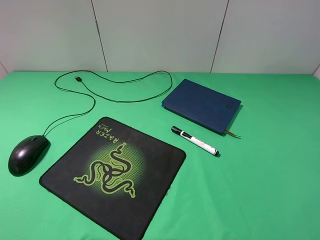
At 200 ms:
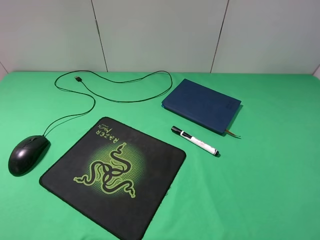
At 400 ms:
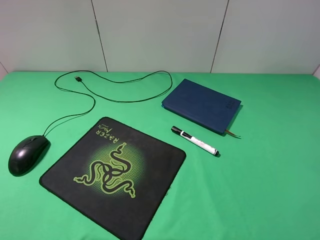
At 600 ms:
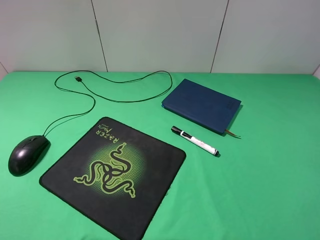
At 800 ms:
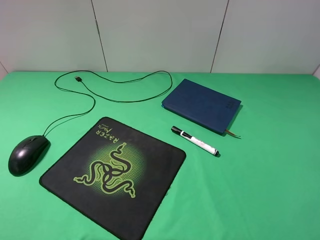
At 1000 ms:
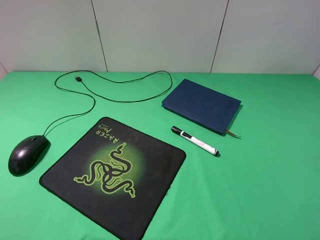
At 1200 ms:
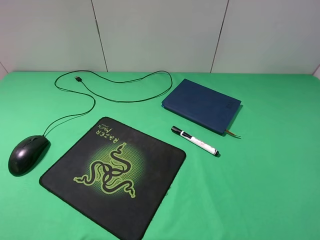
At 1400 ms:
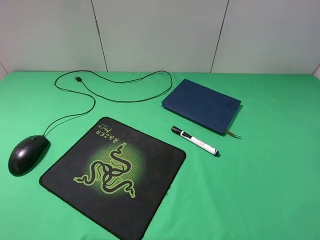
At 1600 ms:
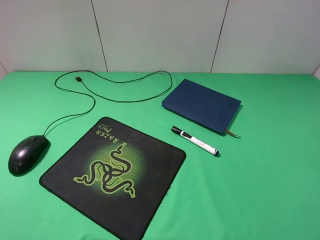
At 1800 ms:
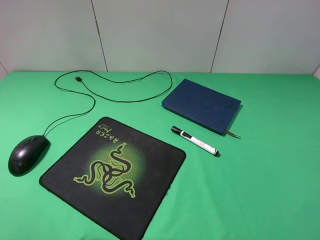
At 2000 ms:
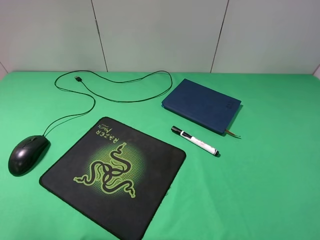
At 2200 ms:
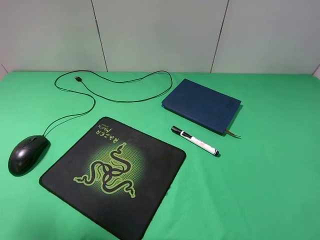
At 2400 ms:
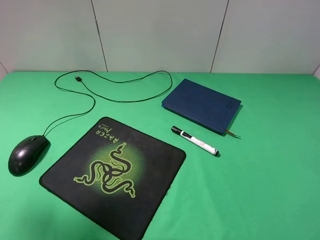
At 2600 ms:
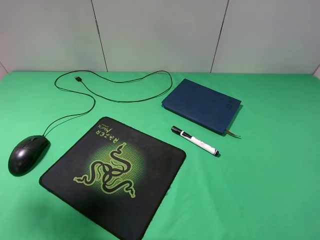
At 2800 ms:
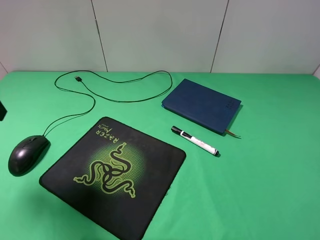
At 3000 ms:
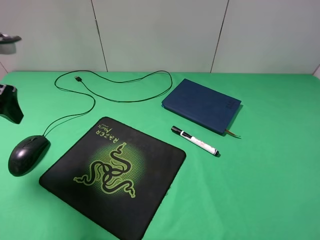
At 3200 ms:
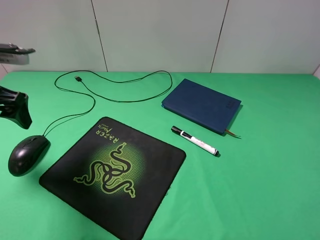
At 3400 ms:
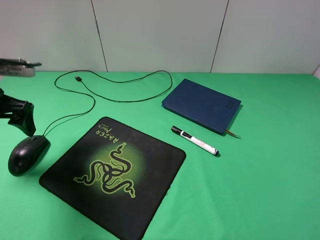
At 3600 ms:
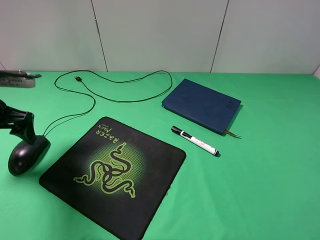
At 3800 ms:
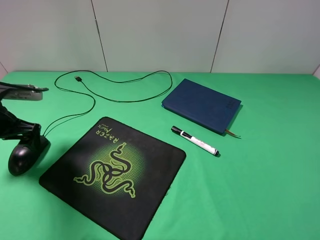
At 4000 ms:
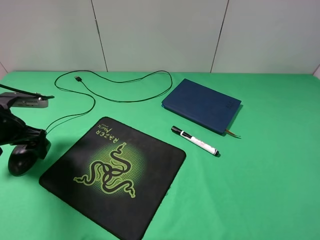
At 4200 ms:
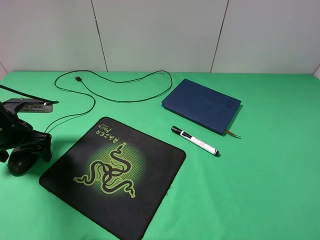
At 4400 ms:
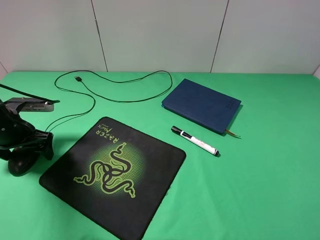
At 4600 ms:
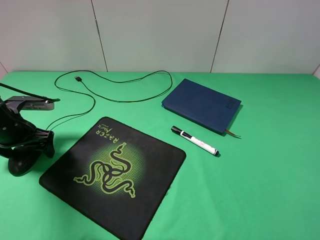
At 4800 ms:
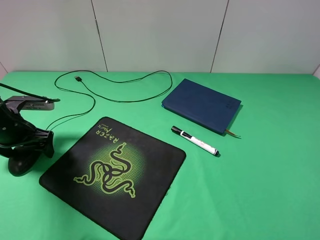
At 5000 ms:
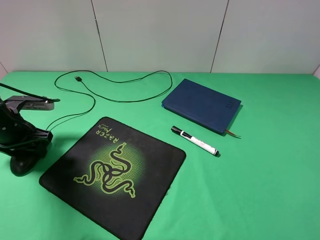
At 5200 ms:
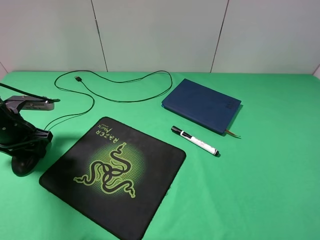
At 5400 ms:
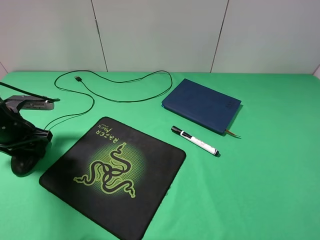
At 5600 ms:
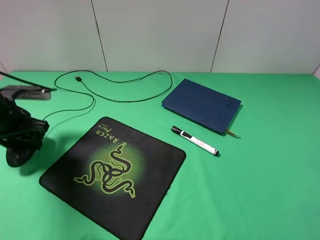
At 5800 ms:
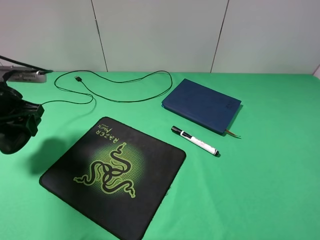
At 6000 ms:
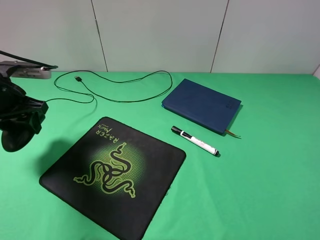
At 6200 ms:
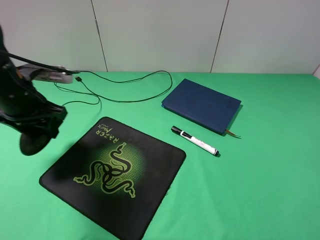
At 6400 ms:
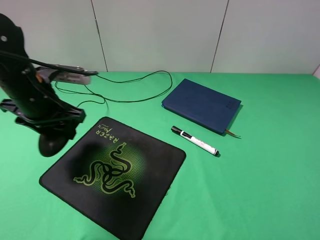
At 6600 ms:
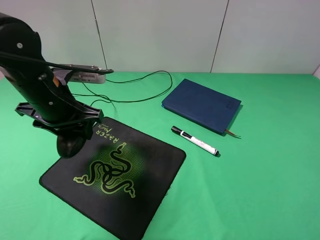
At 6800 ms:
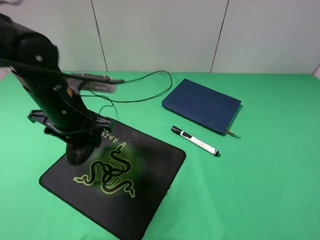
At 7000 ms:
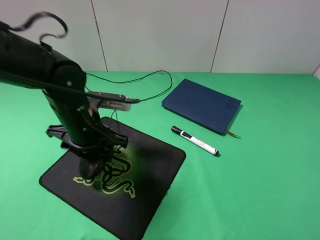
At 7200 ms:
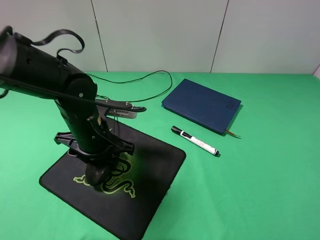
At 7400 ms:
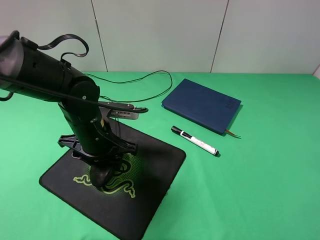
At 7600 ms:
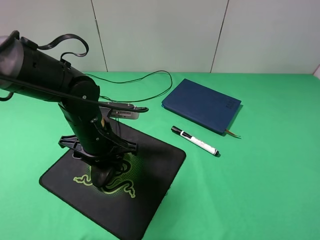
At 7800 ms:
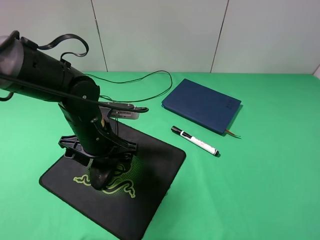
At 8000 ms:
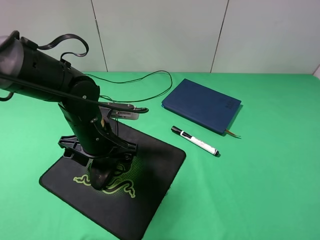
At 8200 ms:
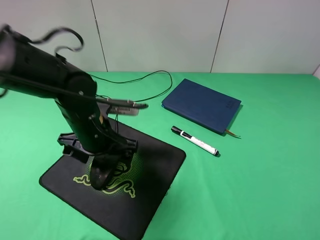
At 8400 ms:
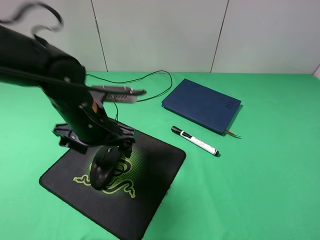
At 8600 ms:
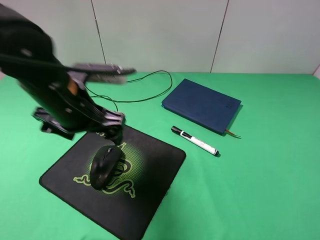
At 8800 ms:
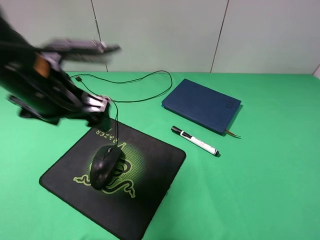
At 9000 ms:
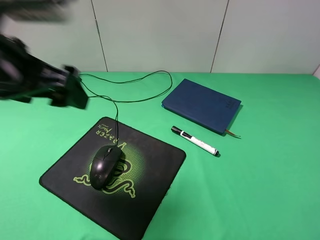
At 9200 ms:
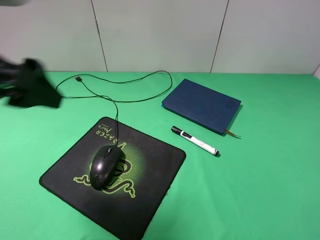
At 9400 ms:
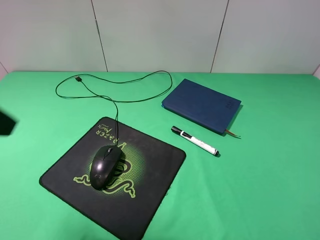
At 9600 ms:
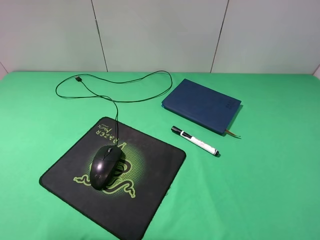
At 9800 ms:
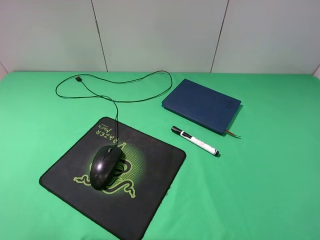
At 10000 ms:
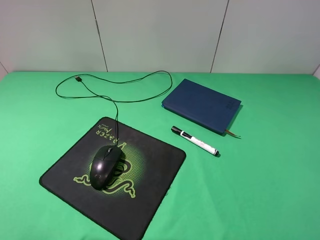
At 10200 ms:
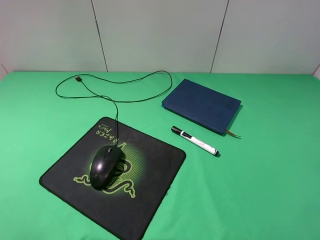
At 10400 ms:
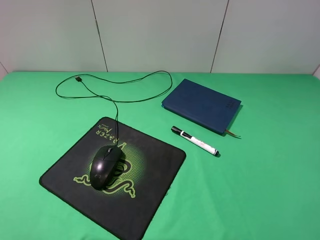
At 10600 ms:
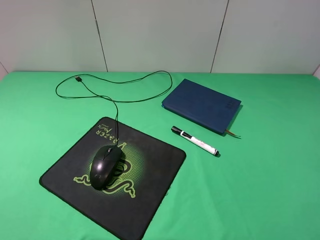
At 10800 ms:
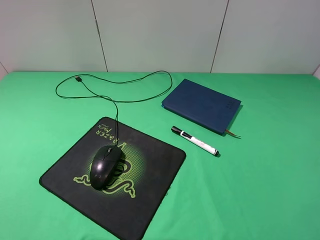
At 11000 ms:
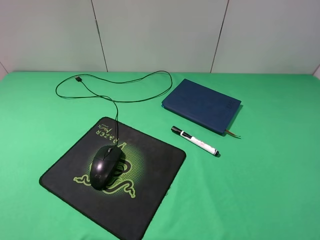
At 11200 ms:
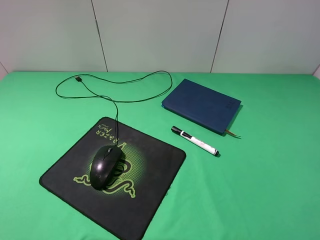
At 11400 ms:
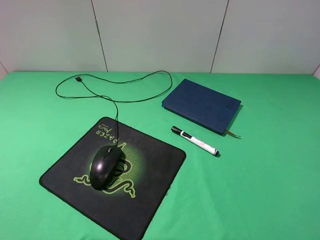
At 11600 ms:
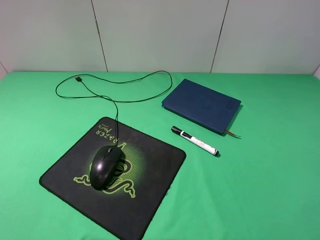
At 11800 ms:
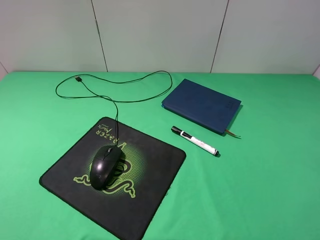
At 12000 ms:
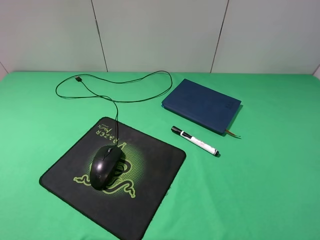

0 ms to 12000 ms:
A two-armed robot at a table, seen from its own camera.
Step, 0 ms to 5200 ms: Grasp the mouse with the left gripper.
Step, 5400 ms to 8200 ms: Place the mouse on the mouse pad with the left gripper.
1600 ms to 3000 ms: The left gripper goes some 20 cm forward.
3000 ms to 4400 ms: The left gripper is displaced downward by approximately 15 cm.
4400 ms to 6000 ms: The left gripper travels upward by some 10 cm, and closes up.
6000 ms to 7600 ms: The left gripper is displaced to the right and downward by about 20 cm.
7600 ms to 9000 ms: The left gripper is displaced upward by some 20 cm, and opens.
9000 ms to 10400 ms: The left gripper goes roughly 20 cm backward and to the left.
10400 ms to 12000 ms: The two grippers keep their place.

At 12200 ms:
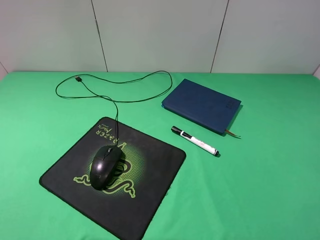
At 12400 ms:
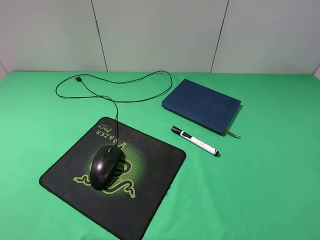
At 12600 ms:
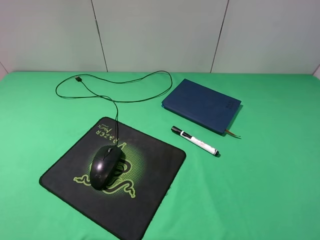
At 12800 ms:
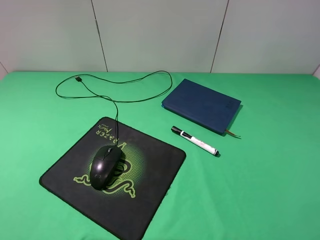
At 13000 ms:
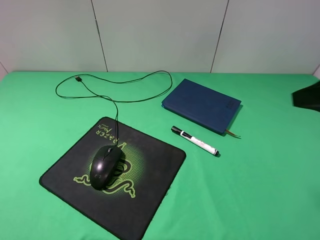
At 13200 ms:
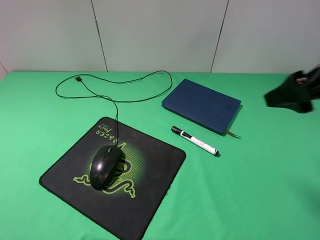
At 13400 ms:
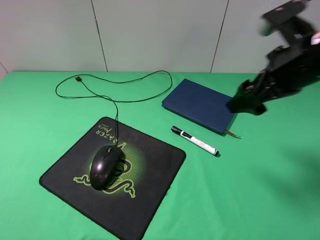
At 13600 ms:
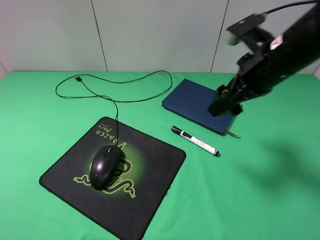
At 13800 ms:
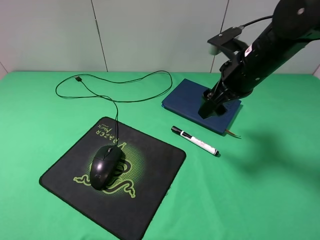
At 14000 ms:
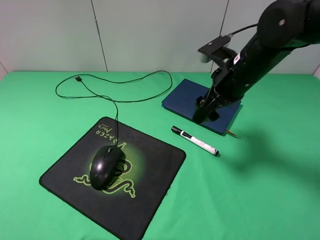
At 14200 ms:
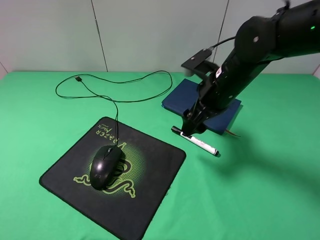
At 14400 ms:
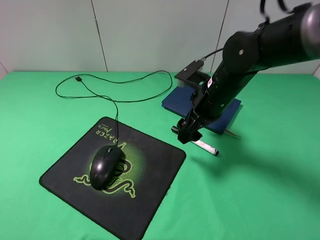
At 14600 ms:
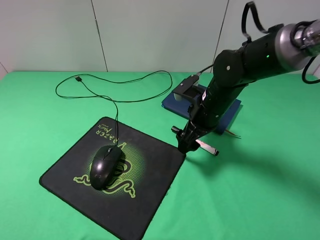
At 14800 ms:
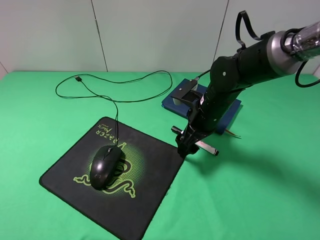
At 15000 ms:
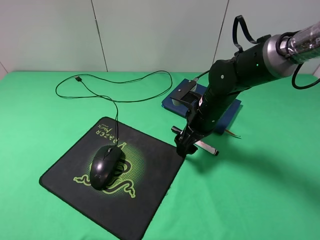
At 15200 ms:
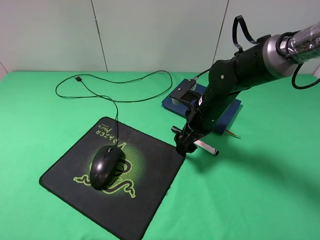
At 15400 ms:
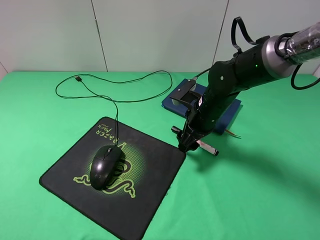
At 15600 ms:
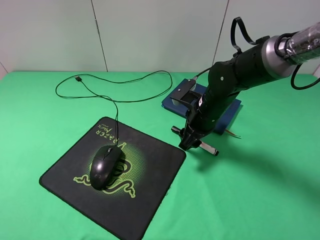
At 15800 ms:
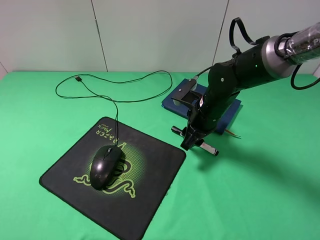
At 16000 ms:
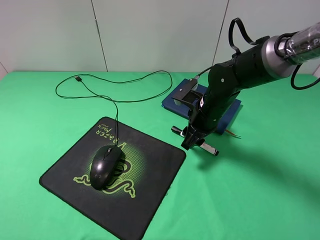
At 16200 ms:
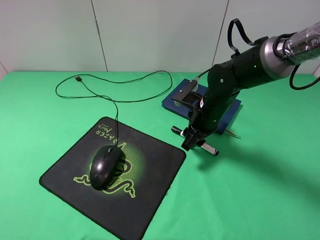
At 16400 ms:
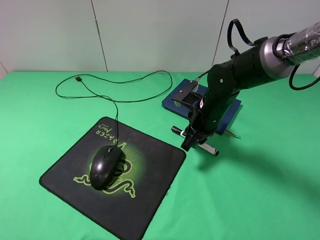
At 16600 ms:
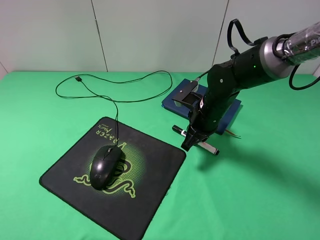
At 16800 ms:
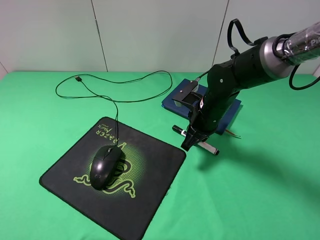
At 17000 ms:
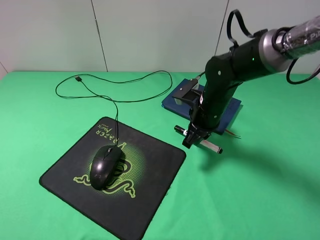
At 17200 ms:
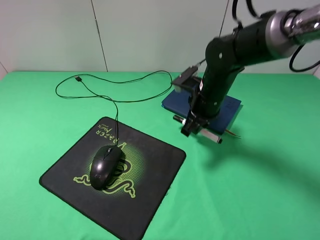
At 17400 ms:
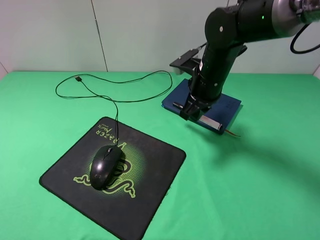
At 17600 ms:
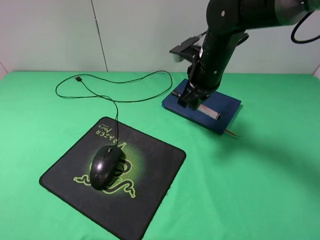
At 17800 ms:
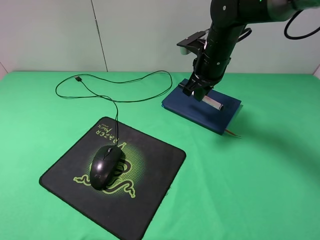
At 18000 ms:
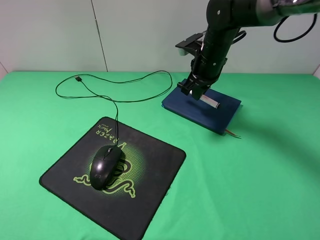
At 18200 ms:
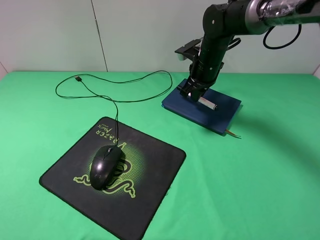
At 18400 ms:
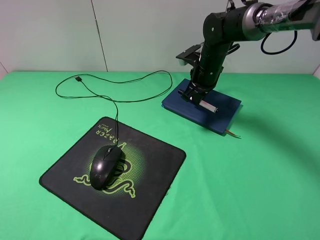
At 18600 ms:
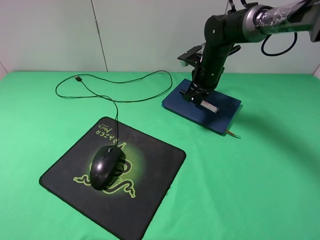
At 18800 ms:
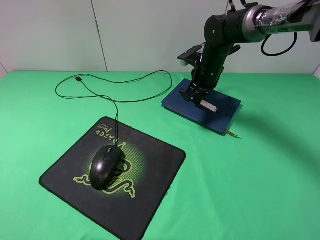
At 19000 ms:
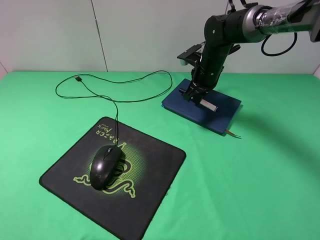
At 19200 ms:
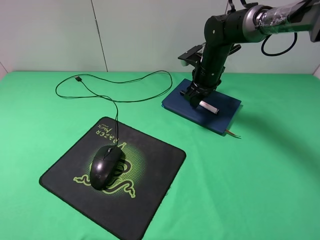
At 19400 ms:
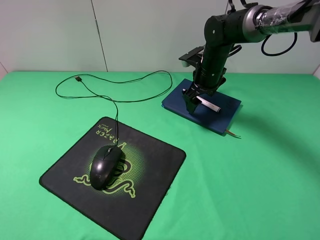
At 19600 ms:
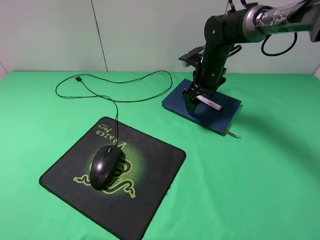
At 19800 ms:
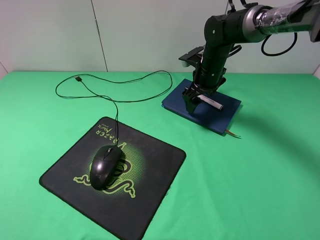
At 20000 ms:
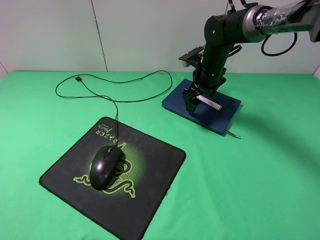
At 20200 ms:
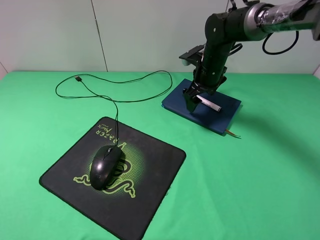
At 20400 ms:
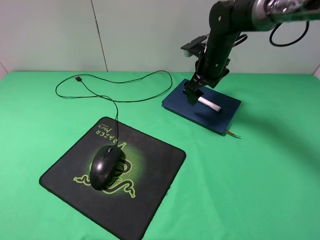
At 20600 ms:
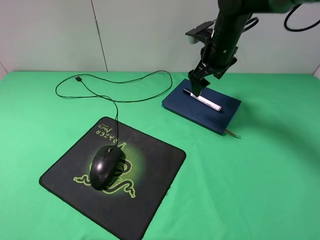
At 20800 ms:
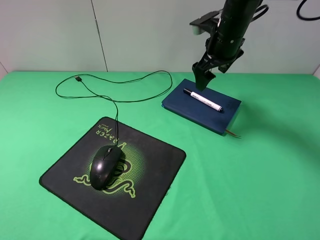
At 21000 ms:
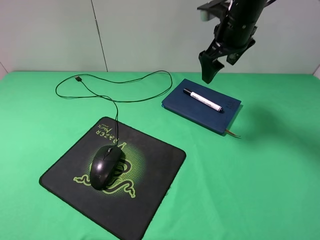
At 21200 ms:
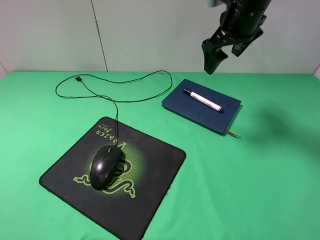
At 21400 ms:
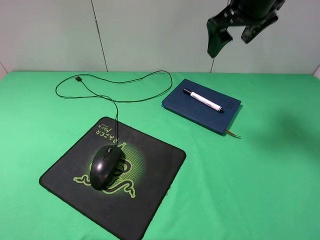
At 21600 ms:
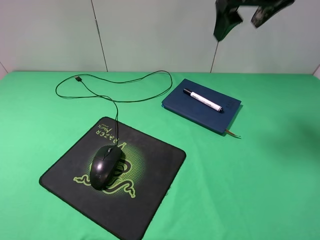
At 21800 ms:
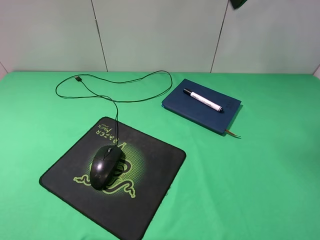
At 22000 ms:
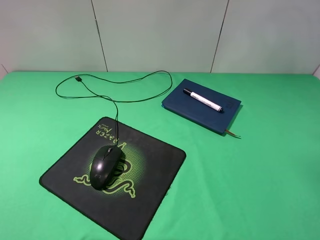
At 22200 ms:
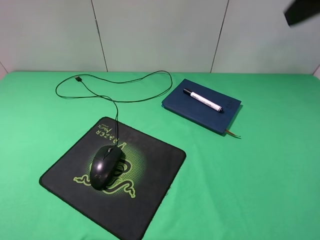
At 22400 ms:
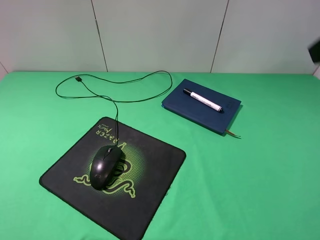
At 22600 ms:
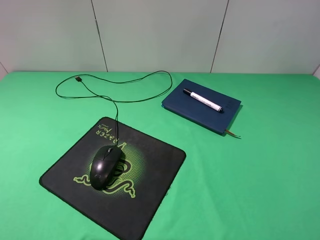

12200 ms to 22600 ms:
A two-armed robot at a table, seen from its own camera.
Step, 12200 ms to 16600 ms: Grasp the marker with the right gripper.
Step, 16800 ms to 19400 ms: Place the marker on the notebook with the right gripper.
12200 ms to 13600 ms: The right gripper heads forward and to the left, covering roughly 30 cm.
13600 ms to 15200 ms: The right gripper travels downward and to the left by about 15 cm.
15200 ms to 16600 ms: The right gripper closes.
16600 ms to 18200 ms: The right gripper is displaced forward and upward by some 15 cm.
18200 ms to 19600 ms: The right gripper opens its fingers.
19600 ms to 21200 ms: The right gripper heads upward, covering roughly 15 cm.
21200 ms to 22600 ms: The right gripper heads backward, covering roughly 30 cm.
